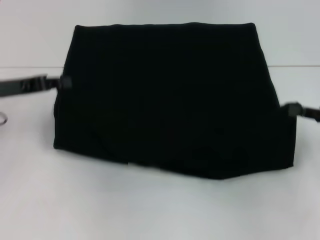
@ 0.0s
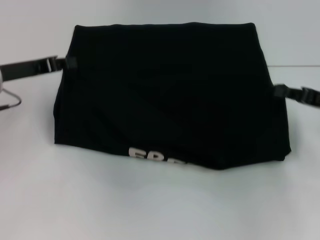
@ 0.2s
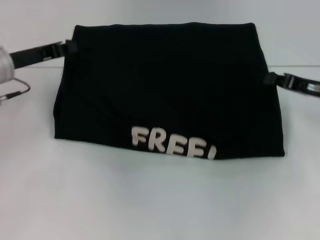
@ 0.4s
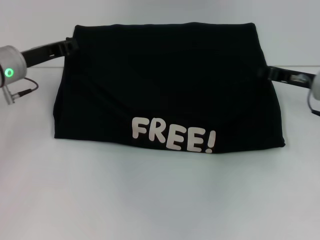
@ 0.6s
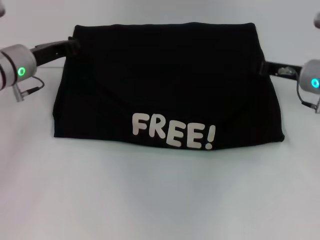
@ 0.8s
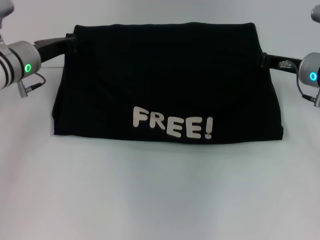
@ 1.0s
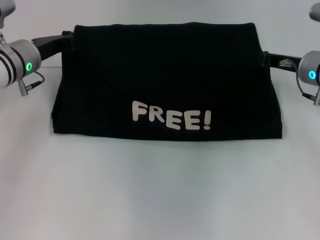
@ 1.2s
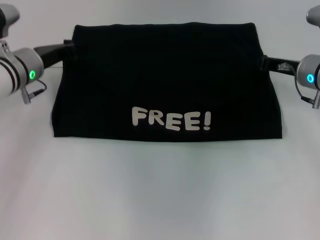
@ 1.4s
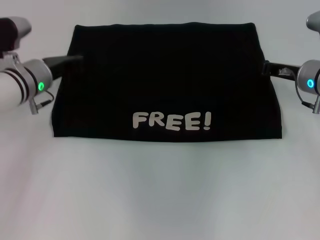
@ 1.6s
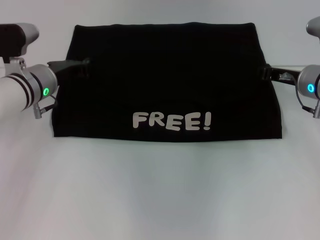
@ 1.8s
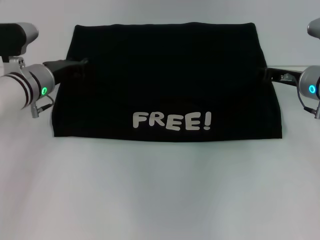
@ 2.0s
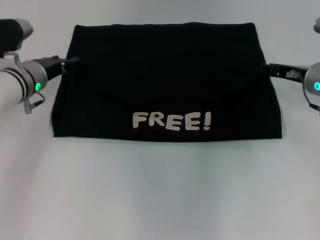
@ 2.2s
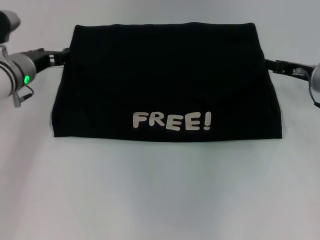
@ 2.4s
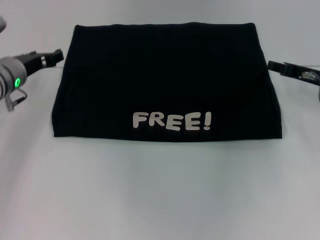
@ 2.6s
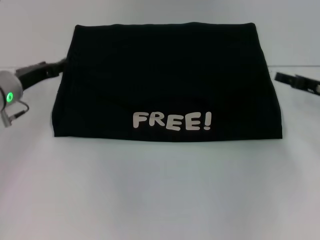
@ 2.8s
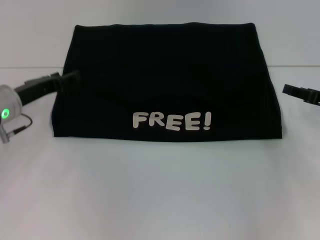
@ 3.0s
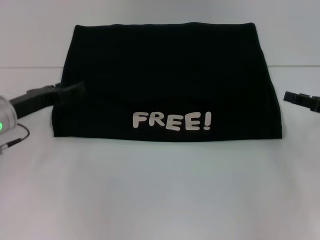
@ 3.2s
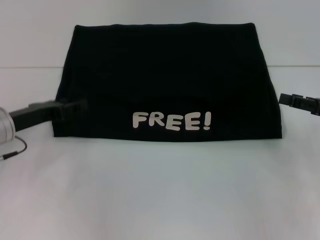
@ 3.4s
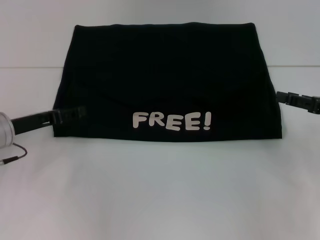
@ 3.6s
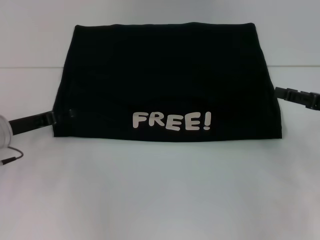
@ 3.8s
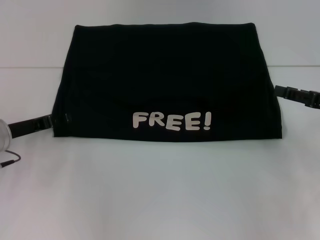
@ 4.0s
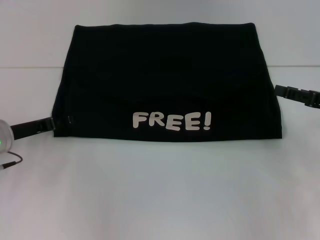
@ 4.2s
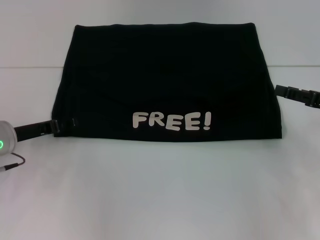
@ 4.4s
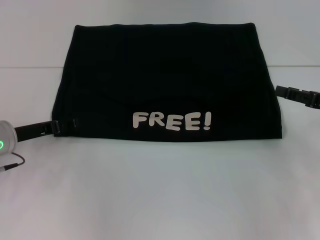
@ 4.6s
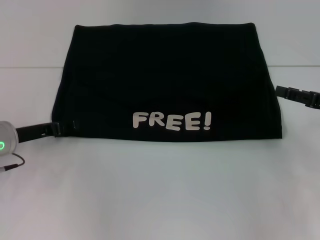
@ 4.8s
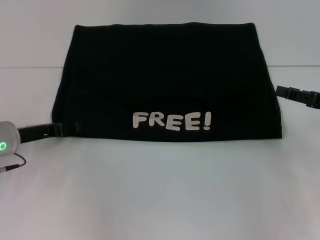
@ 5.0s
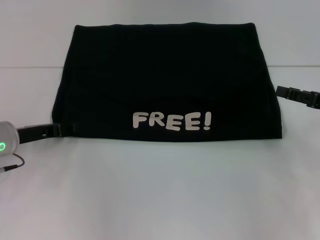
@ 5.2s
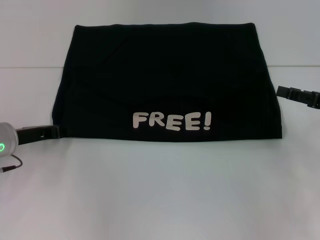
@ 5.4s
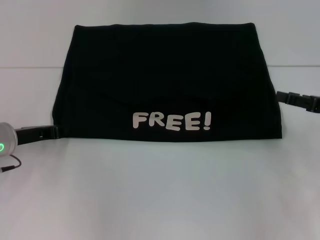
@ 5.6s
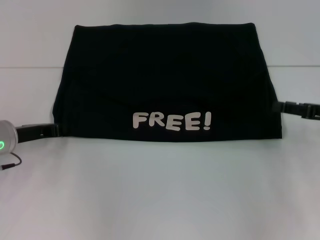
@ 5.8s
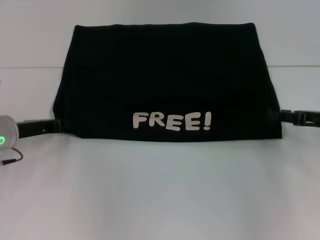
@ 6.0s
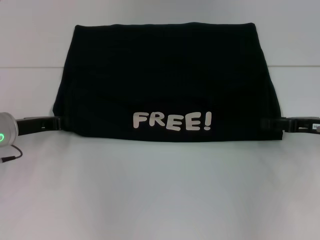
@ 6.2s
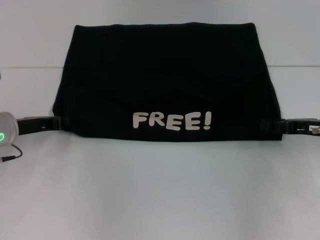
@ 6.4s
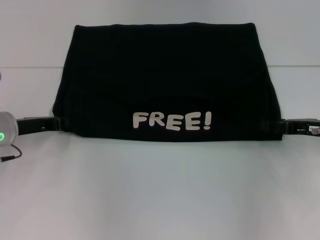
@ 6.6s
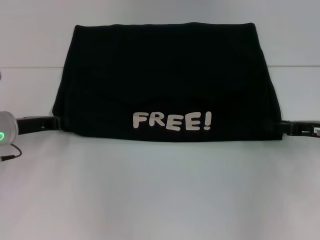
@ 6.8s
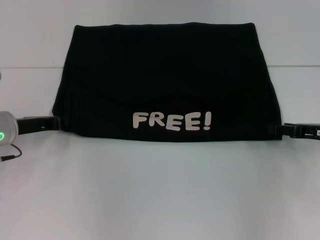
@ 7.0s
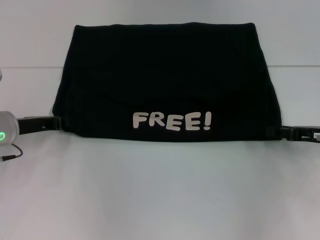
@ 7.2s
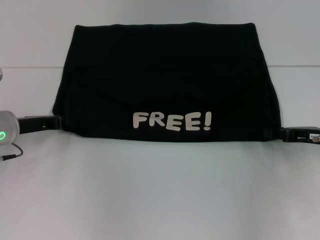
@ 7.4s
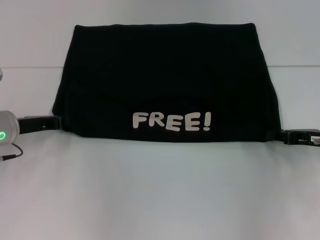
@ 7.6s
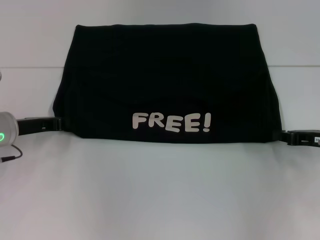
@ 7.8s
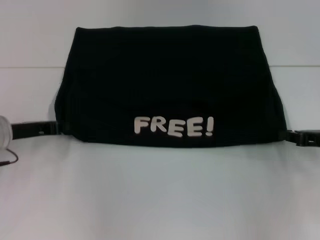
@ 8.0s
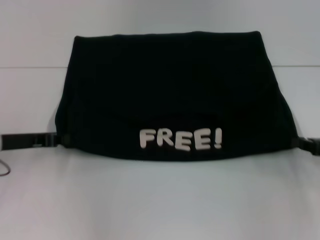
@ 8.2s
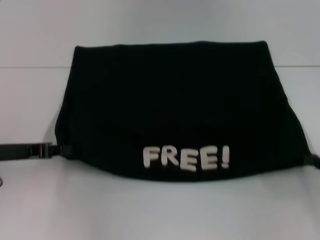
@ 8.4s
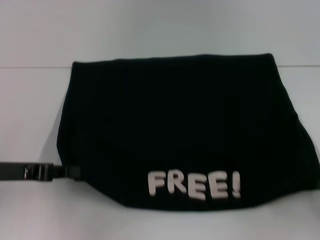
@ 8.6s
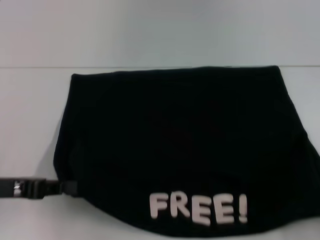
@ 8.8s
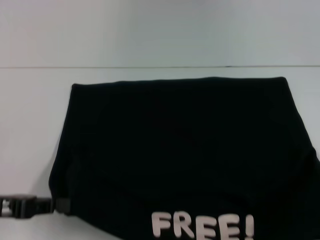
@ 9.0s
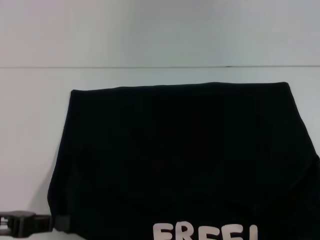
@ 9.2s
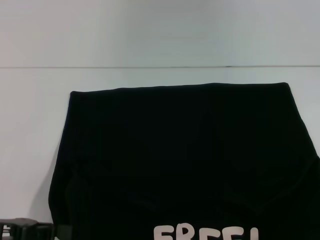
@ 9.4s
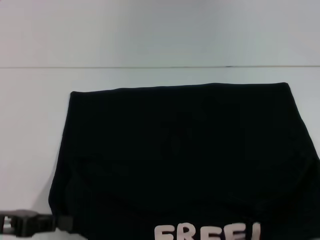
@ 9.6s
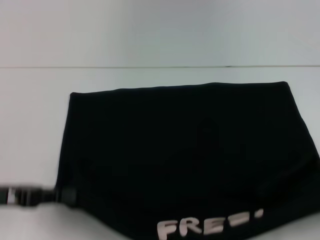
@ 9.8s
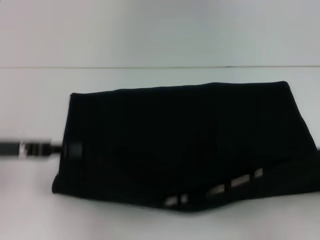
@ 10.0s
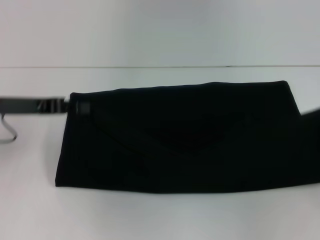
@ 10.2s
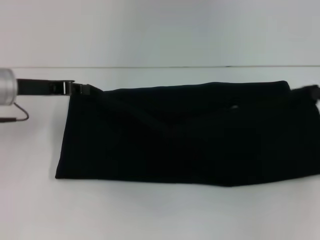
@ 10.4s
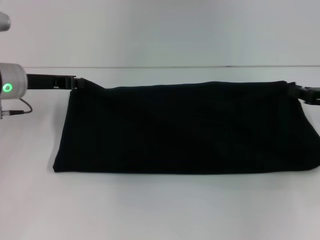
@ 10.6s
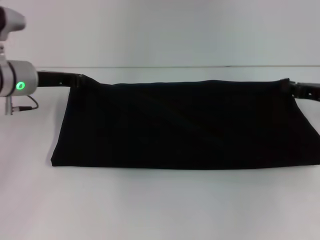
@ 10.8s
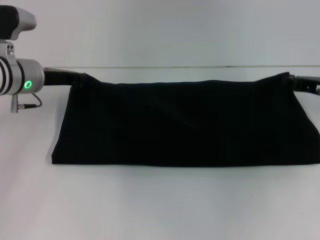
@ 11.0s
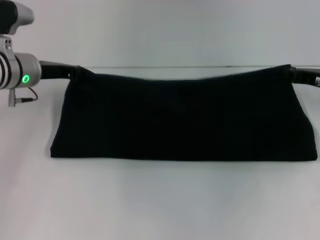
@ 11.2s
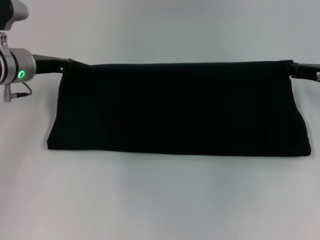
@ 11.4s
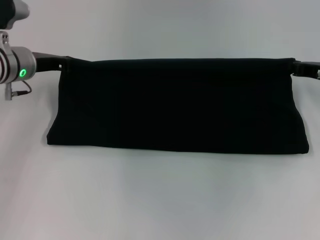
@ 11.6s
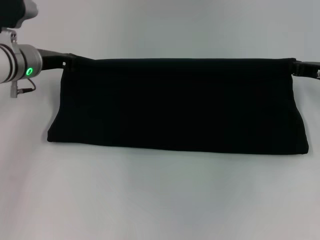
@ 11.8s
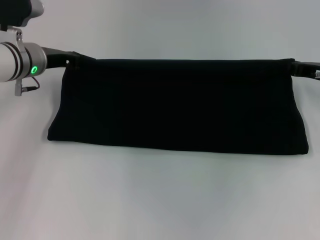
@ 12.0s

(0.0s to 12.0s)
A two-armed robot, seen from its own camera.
Step, 0.0s - 2.2s: Fold the clothes with your left hand.
Step, 0.0s - 2.2s: Fold the clothes with your right hand.
Step, 2.4s - 9.2s: Pull the clothes with your left hand.
Step, 2.4s - 9.2s: Pull the clothes with your right hand.
0.0s - 1.6s: The left gripper goes about 10 cm to the right and forward; the right gripper heads forward and to the left, covering approximately 15 cm.
1.6s - 3.0s: The left gripper shifts about 5 cm backward, and opens up; the right gripper travels to the right and backward by roughly 10 cm, and opens up.
3.0s - 4.4s: The grippers stay close to where they were, moving slightly.
4.4s - 6.0s: The left gripper closes up.
6.0s - 7.6s: There are only small adjustments of the grippers.
7.6s - 9.0s: The right gripper goes some 20 cm backward and to the right, and closes up. The left gripper heads backward, covering about 15 cm.
9.0s - 10.4s: Both grippers move forward, some 15 cm.
10.4s - 12.0s: The right gripper moves forward and to the left, about 10 cm; the left gripper heads forward, covering approximately 5 cm.

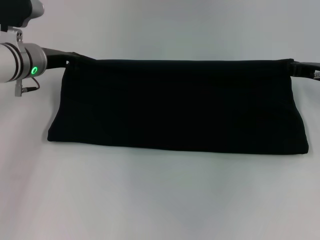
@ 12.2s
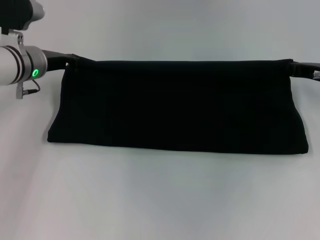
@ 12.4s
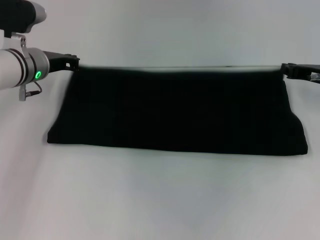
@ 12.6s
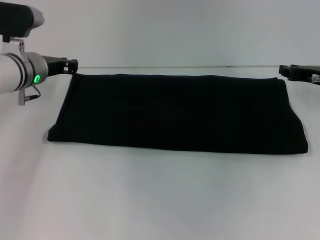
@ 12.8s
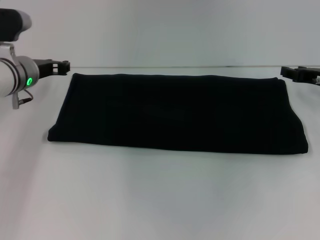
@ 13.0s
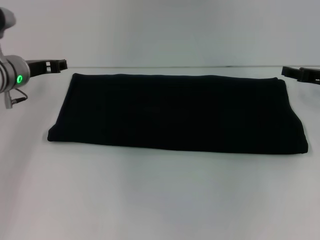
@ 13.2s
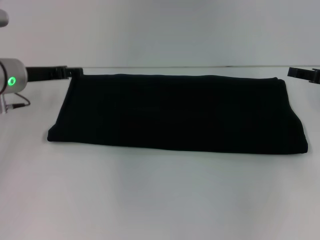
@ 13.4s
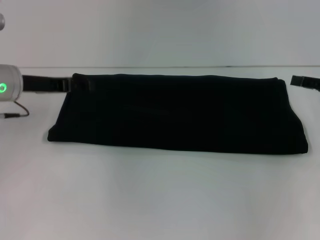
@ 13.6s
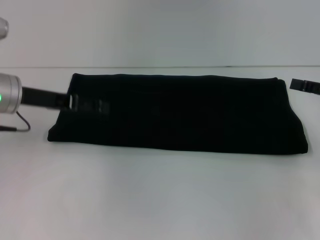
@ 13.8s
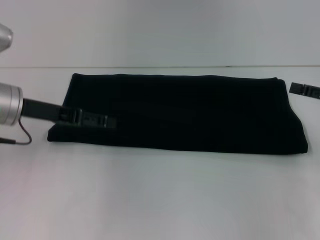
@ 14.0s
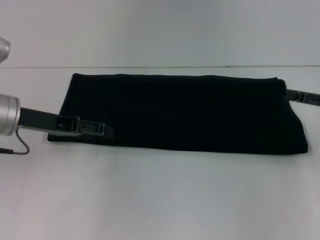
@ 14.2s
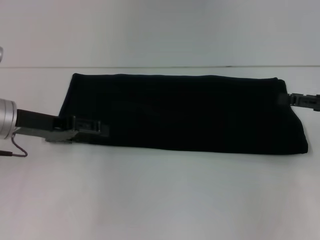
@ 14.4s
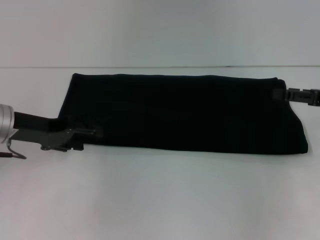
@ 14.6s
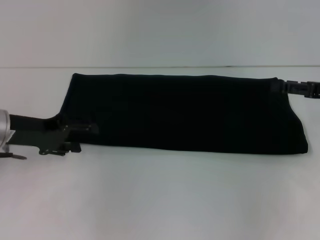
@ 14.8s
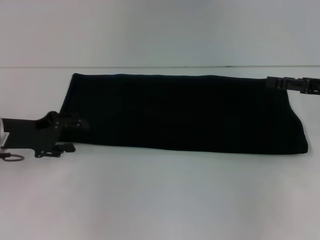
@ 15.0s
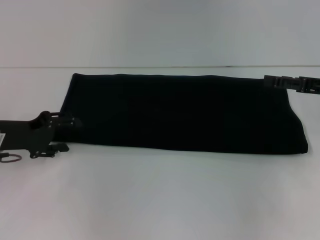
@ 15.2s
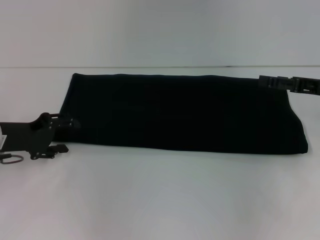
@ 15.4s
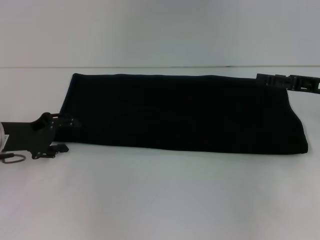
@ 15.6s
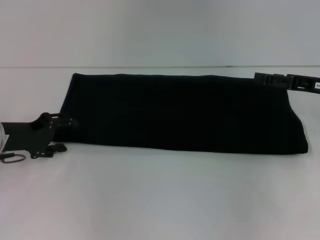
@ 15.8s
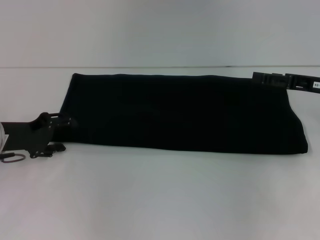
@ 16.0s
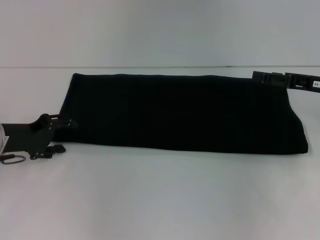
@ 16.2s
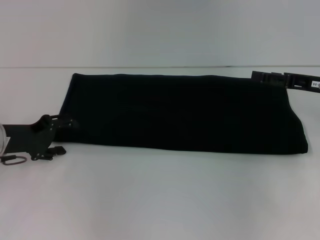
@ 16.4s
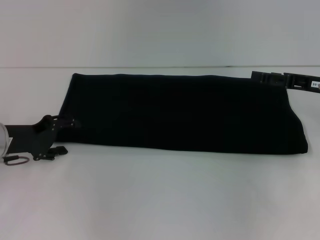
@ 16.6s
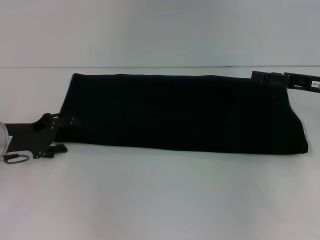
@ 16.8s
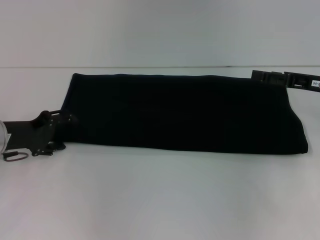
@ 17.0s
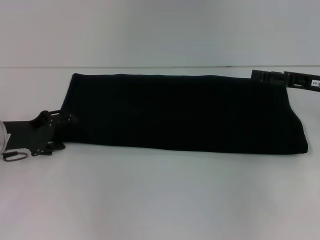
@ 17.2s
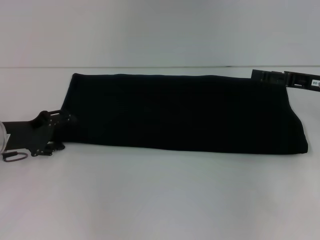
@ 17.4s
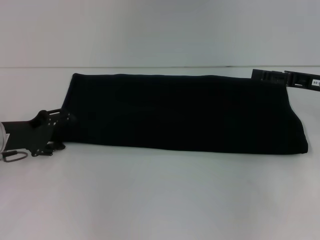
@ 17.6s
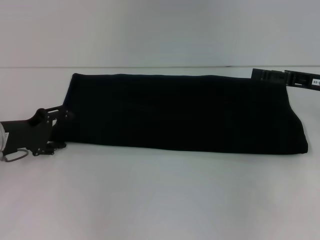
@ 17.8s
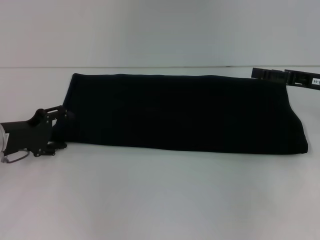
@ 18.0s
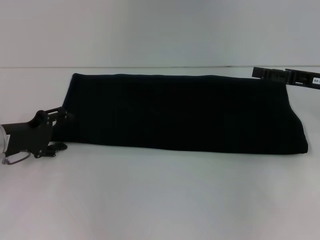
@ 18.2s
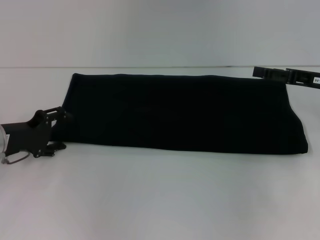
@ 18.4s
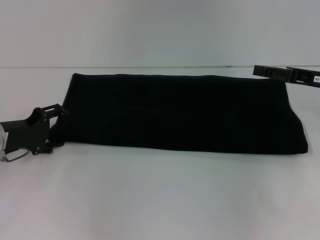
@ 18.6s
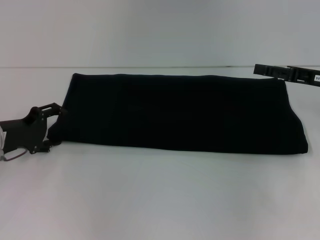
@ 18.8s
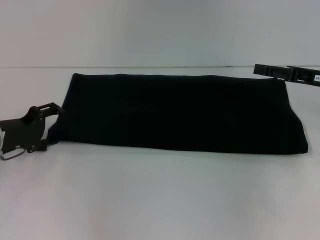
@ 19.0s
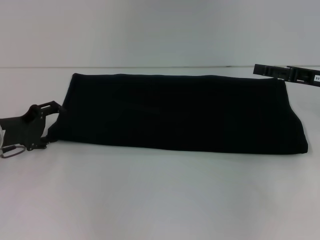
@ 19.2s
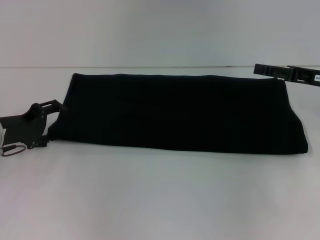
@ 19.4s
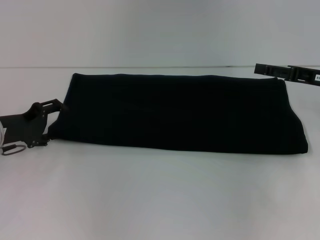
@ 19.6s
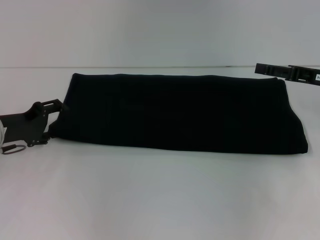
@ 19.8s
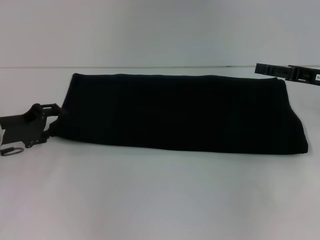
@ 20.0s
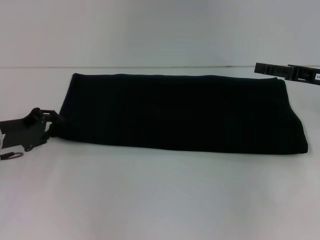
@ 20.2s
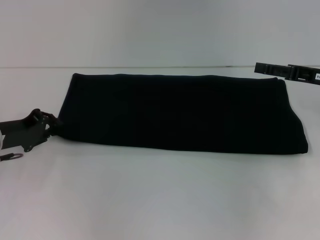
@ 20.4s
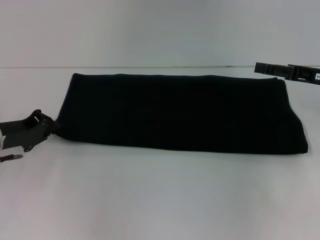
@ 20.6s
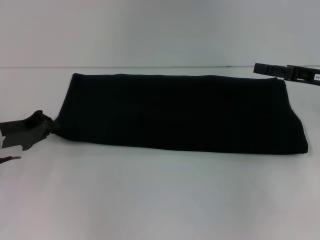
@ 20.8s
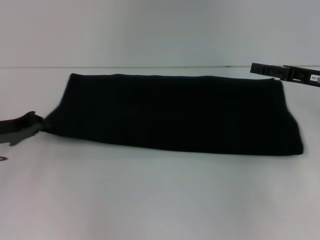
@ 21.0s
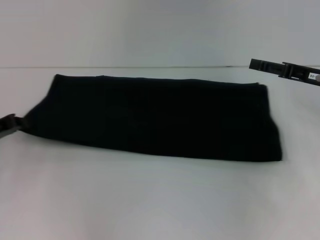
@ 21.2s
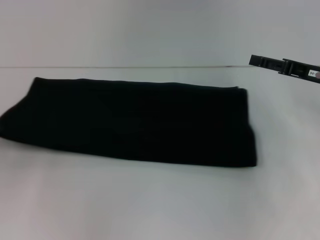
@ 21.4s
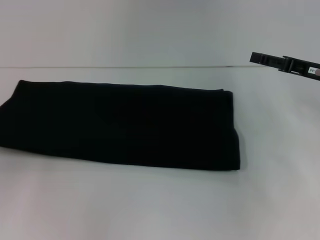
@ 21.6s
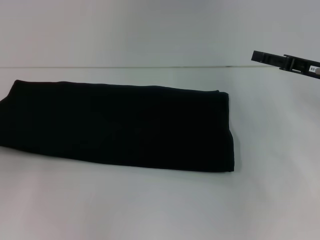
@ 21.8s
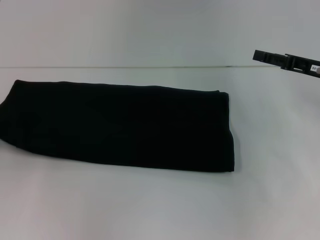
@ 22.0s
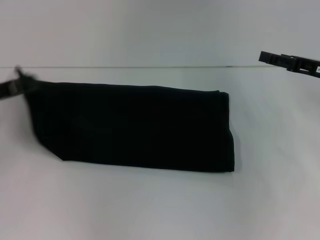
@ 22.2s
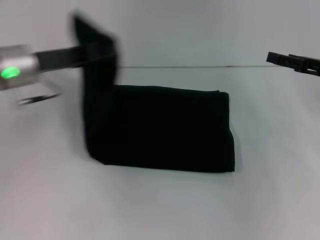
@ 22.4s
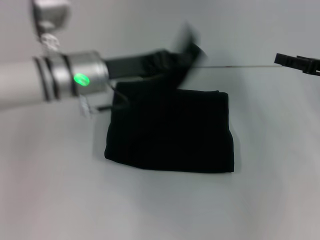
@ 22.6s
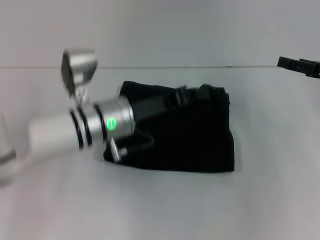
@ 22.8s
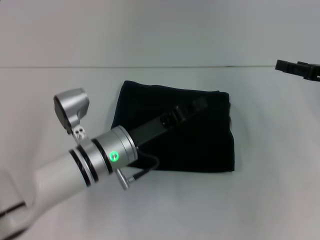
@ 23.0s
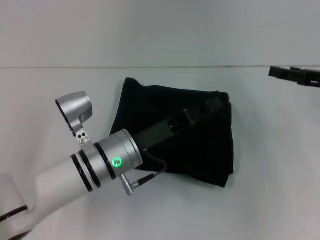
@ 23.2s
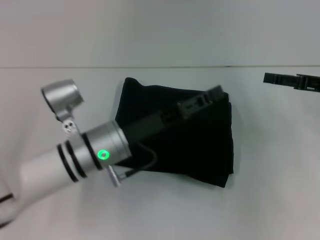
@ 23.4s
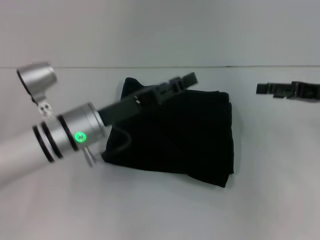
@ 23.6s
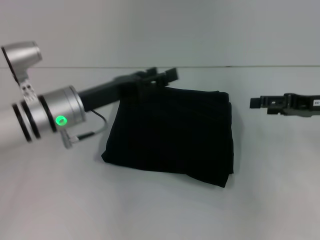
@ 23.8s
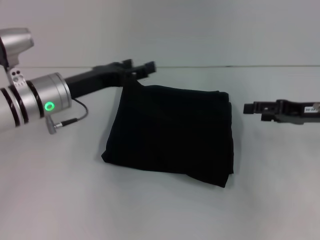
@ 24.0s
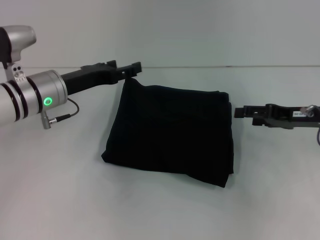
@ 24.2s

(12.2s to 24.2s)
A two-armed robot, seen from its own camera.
Step, 12.2s - 23.2s: Fold the clothes with your left hand.
12.2s - 13.8s: The left gripper heads backward, covering about 5 cm, and opens, while the right gripper is displaced backward and to the right by about 10 cm, and opens its fingers.
13.8s - 15.2s: The left gripper is displaced downward by approximately 5 cm.
15.2s - 19.8s: The grippers make only small movements.
19.8s - 21.2s: The left gripper closes its fingers.
21.2s - 22.6s: The left gripper moves to the right, roughly 20 cm.
22.6s - 24.2s: The right gripper changes place by about 5 cm. The left gripper is displaced to the left by approximately 5 cm, and opens its fingers.
